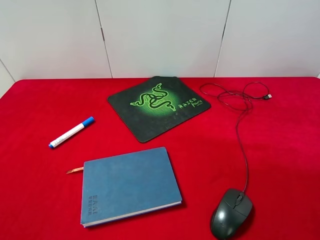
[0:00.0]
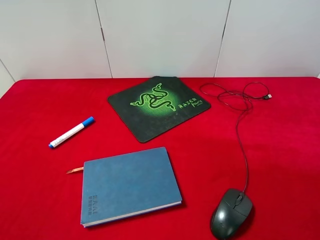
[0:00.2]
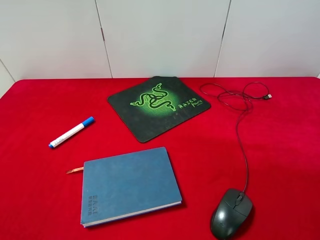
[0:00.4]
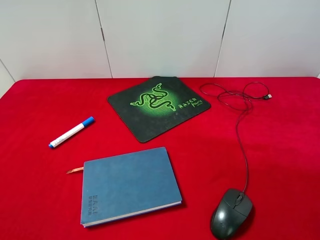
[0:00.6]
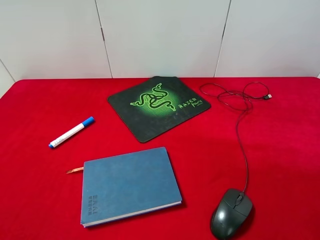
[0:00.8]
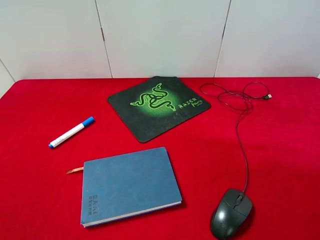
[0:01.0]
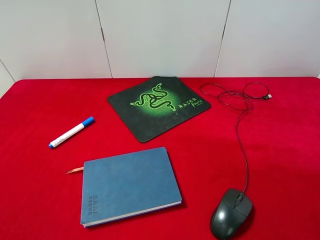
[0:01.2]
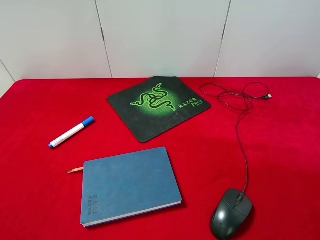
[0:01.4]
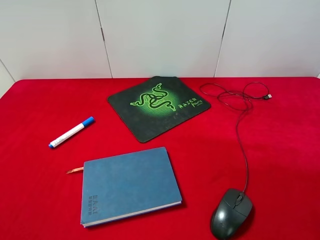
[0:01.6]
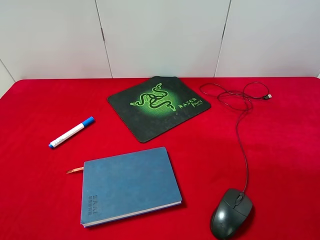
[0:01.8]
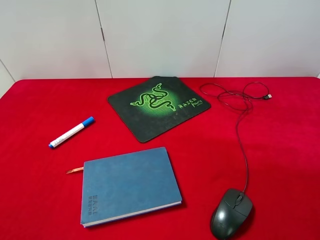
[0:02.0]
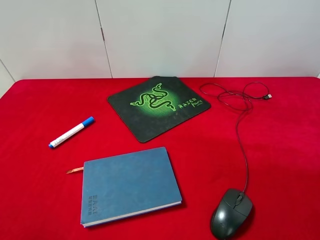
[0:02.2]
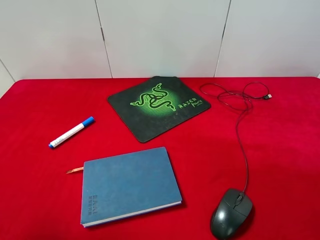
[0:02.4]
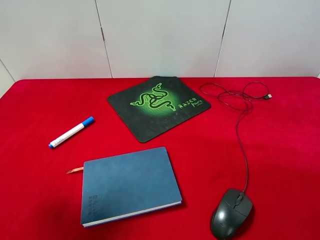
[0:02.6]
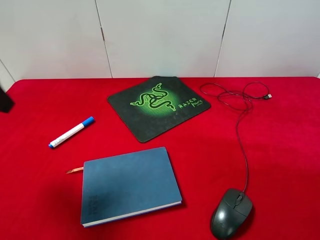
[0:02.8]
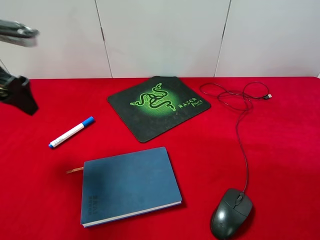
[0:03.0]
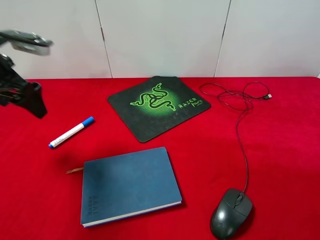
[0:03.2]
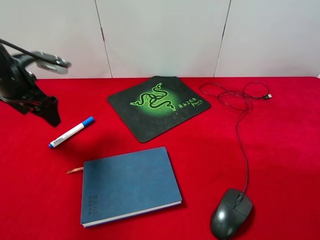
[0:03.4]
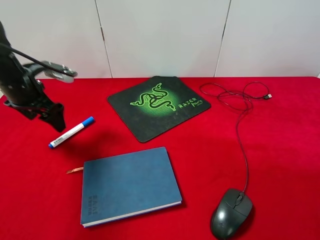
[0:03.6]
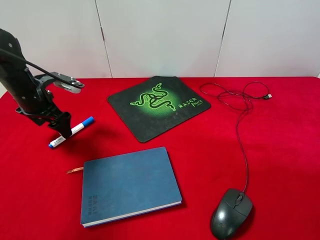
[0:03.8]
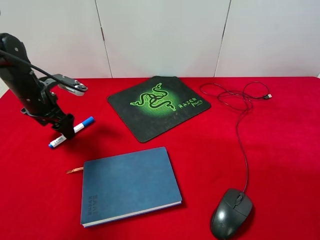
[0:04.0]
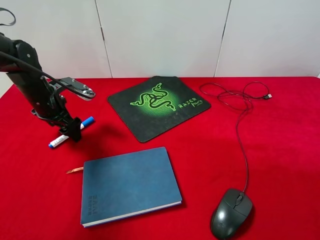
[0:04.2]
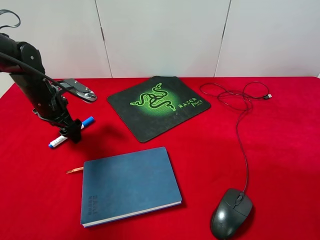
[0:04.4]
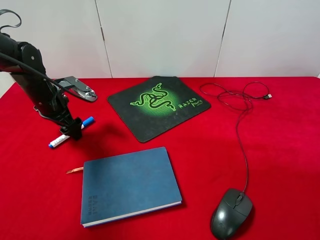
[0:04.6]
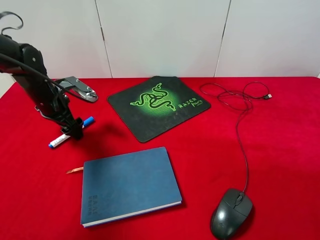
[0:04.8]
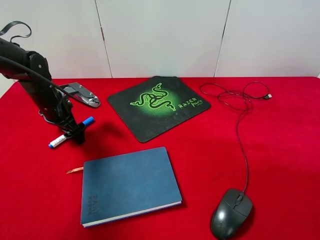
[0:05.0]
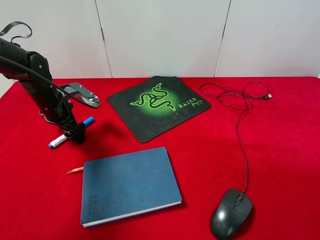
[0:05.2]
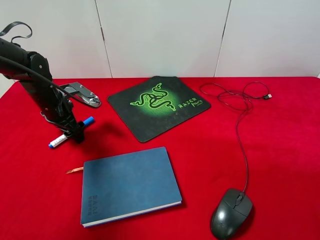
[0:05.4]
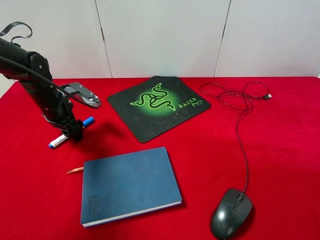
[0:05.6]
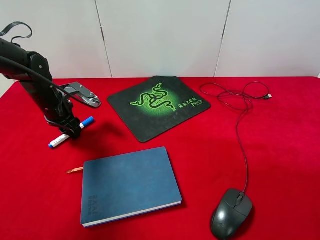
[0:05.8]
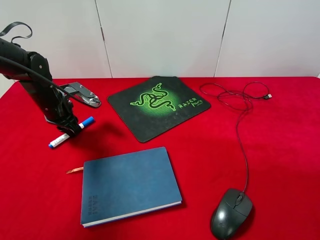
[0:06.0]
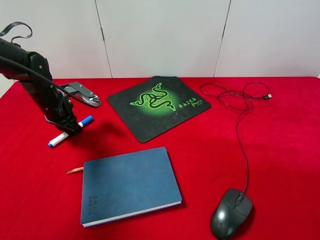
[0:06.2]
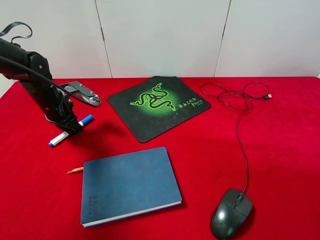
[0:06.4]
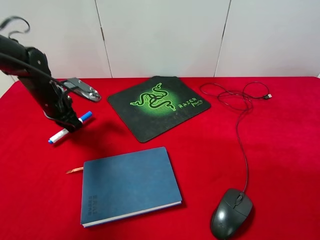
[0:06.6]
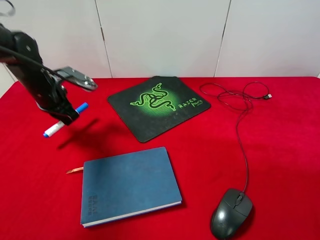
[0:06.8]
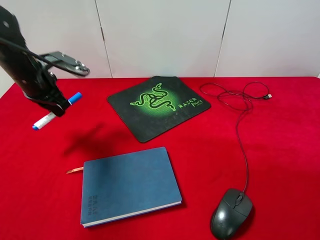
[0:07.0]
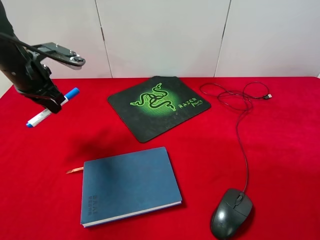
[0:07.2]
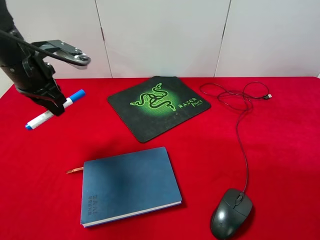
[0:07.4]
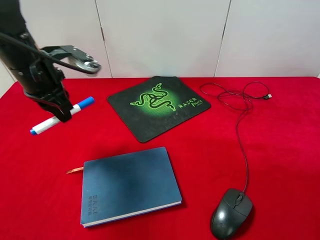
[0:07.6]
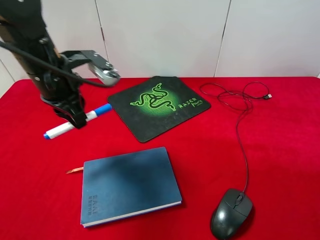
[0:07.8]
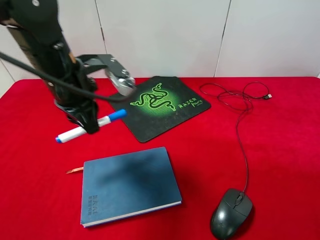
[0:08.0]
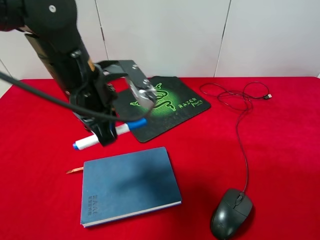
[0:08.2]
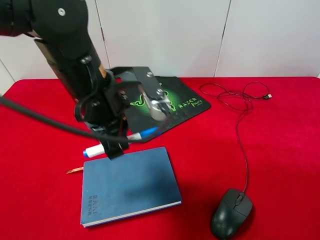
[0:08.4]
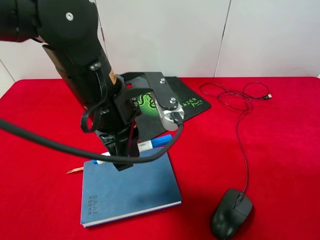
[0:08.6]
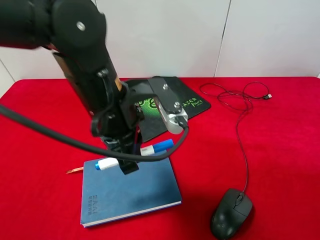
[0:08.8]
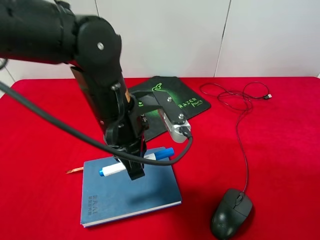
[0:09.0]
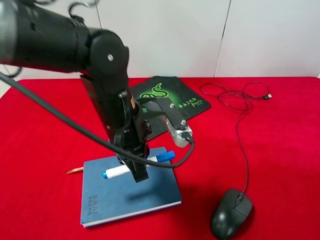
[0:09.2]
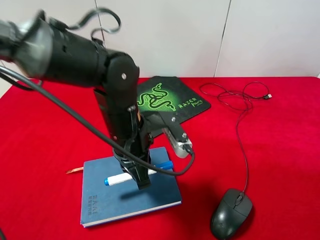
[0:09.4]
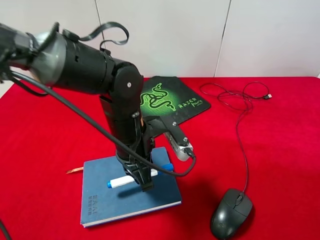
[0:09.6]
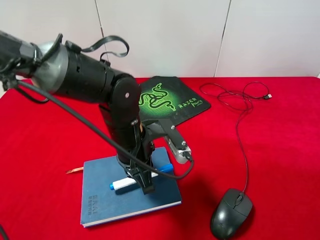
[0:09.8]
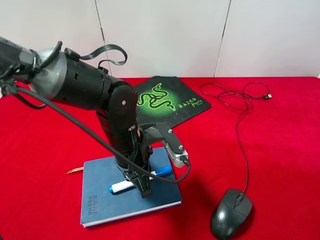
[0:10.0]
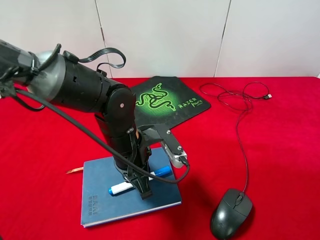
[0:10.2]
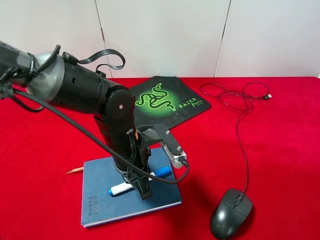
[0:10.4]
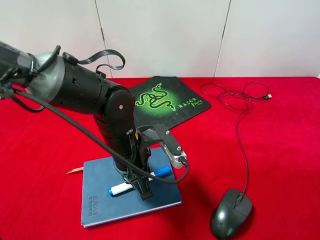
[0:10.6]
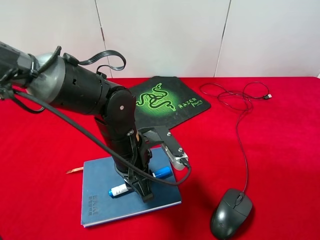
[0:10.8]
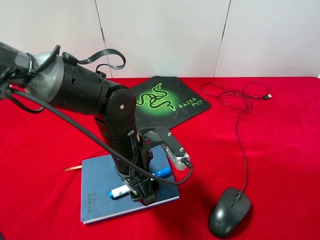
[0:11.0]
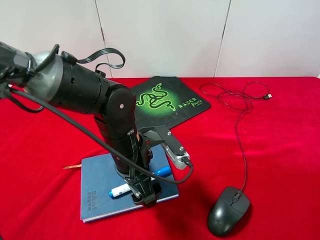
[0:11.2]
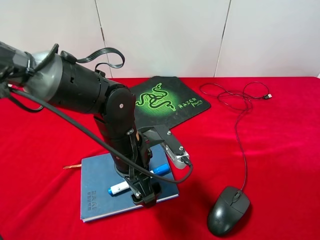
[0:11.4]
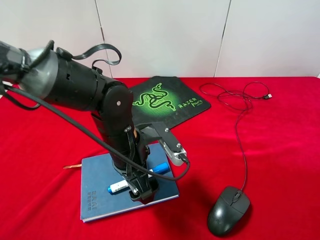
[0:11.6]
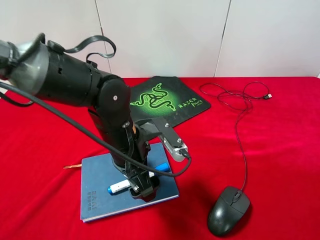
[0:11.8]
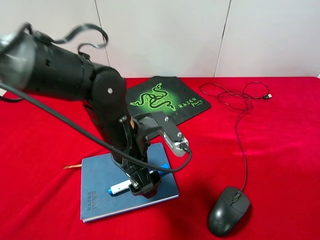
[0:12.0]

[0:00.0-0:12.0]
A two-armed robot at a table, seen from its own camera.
Step, 0:00.0 to 0:06.6: Pick up the marker pen with left gripper.
Step, 0:06.8 to 0:11.6: Place the marker pen on the notebook with left gripper.
0:00.0 to 0:01.6: The two grippers keep their place.
0:01.6 to 0:03.0: The left gripper heads forward, covering about 30 cm.
0:03.0 to 0:04.4: The left gripper shifts approximately 15 cm downward and forward.
0:04.4 to 0:06.0: The left gripper closes its fingers.
0:06.0 to 0:07.6: The left gripper is displaced upward, backward and to the right by some 15 cm.
0:07.6 to 0:09.0: The left gripper is displaced to the right and backward by roughly 15 cm.
0:09.0 to 0:10.4: The left gripper heads downward, covering approximately 10 cm.
0:10.4 to 0:12.0: The left gripper opens.

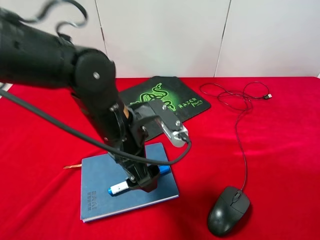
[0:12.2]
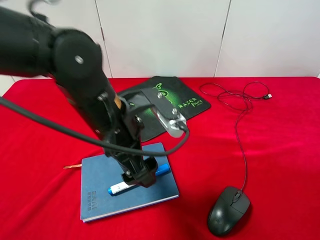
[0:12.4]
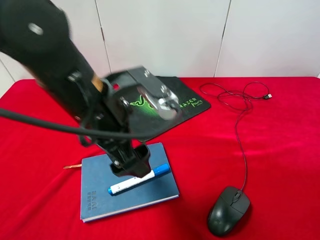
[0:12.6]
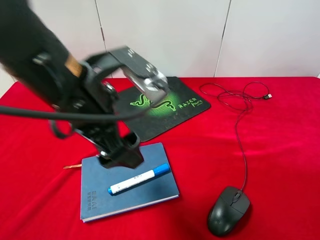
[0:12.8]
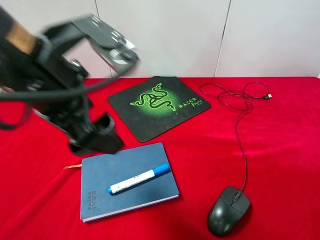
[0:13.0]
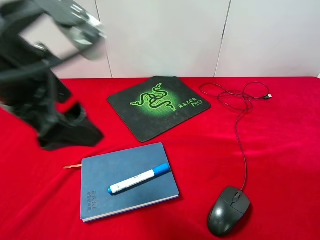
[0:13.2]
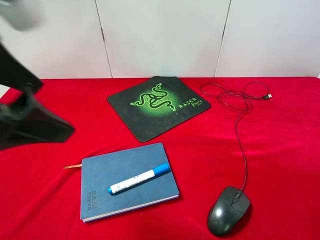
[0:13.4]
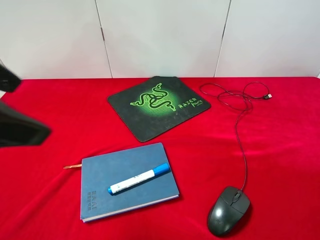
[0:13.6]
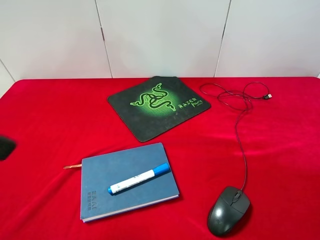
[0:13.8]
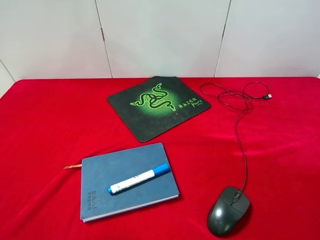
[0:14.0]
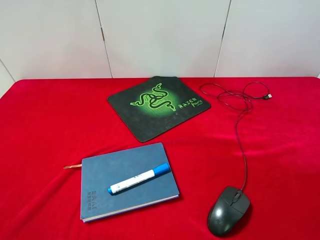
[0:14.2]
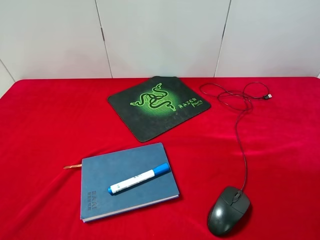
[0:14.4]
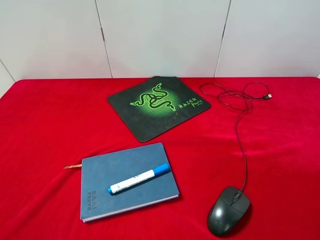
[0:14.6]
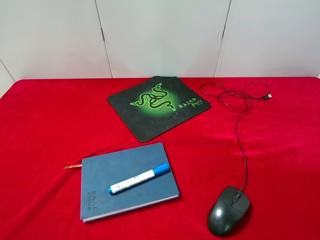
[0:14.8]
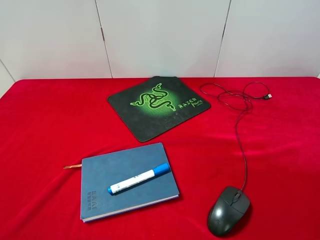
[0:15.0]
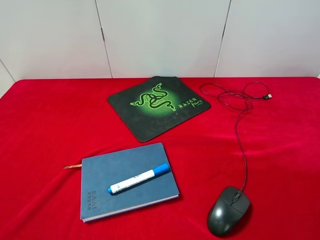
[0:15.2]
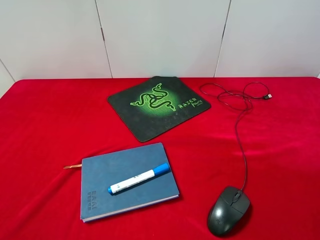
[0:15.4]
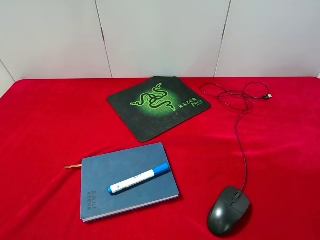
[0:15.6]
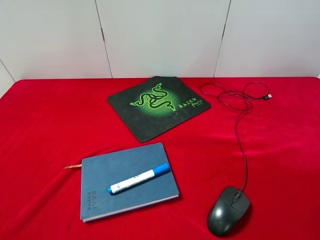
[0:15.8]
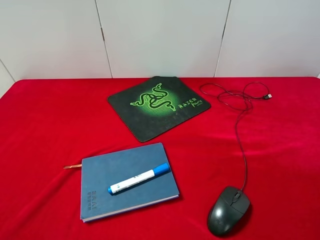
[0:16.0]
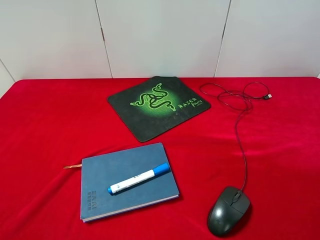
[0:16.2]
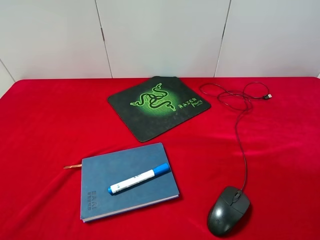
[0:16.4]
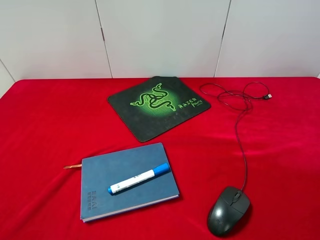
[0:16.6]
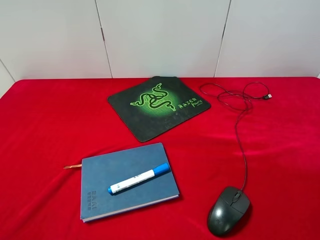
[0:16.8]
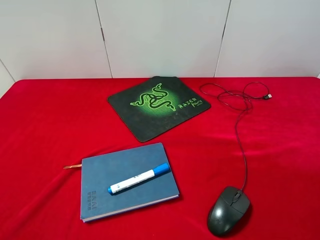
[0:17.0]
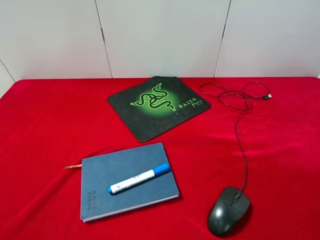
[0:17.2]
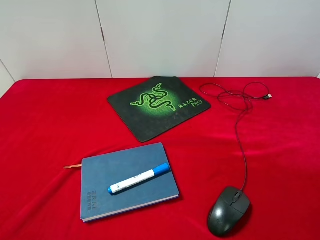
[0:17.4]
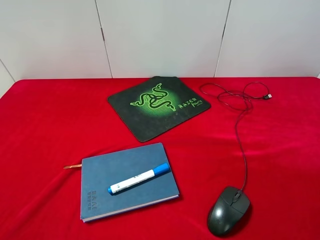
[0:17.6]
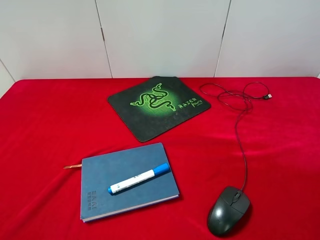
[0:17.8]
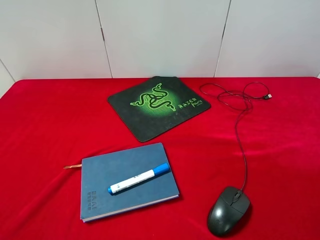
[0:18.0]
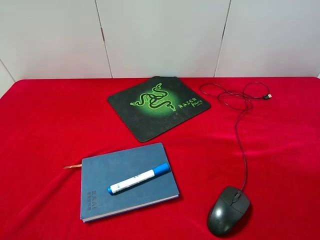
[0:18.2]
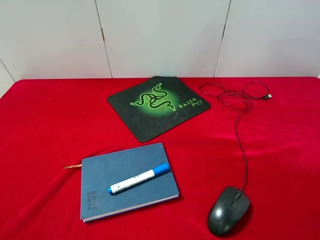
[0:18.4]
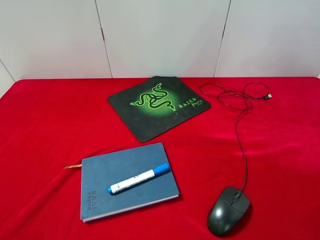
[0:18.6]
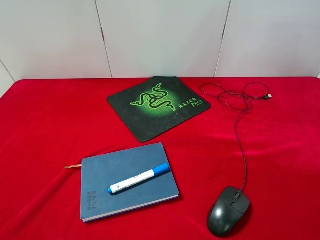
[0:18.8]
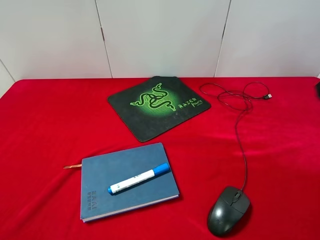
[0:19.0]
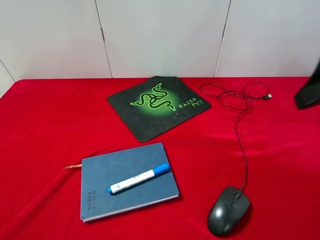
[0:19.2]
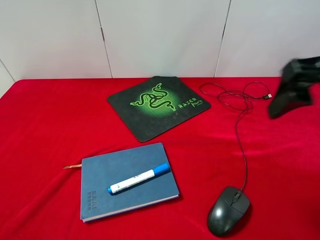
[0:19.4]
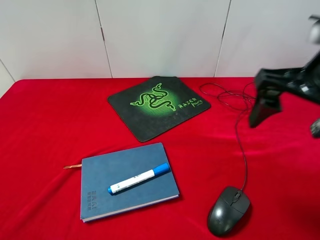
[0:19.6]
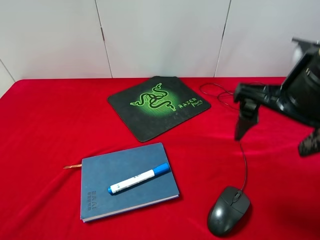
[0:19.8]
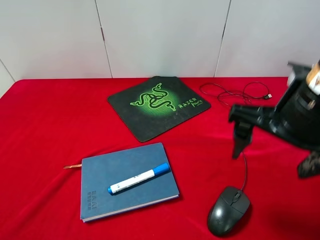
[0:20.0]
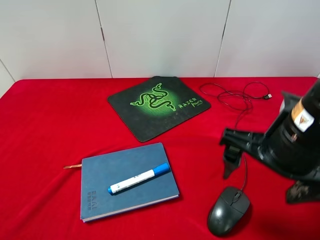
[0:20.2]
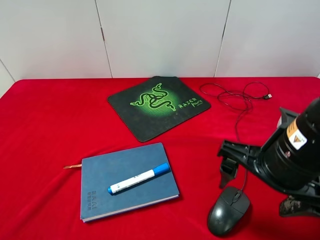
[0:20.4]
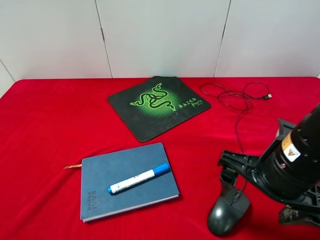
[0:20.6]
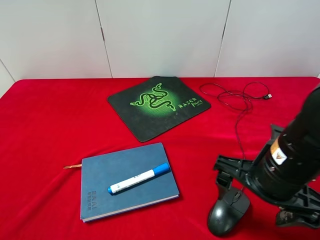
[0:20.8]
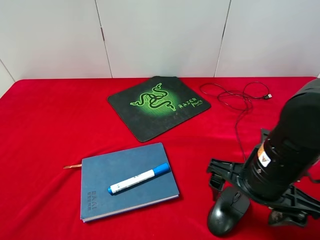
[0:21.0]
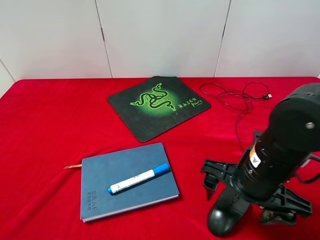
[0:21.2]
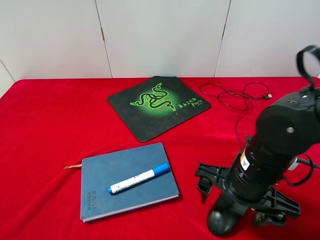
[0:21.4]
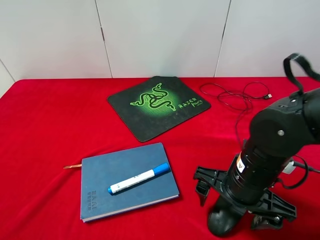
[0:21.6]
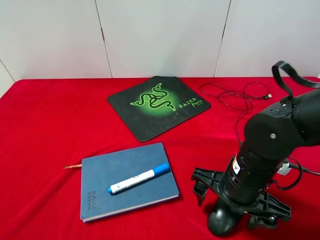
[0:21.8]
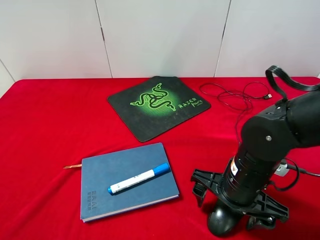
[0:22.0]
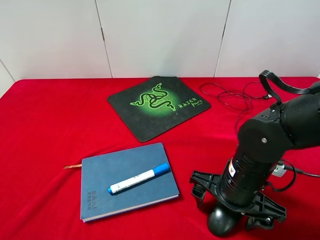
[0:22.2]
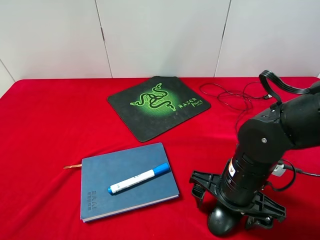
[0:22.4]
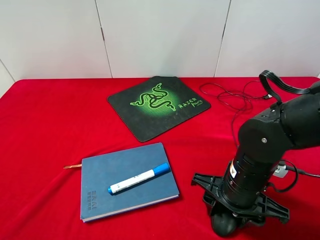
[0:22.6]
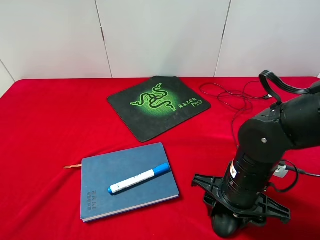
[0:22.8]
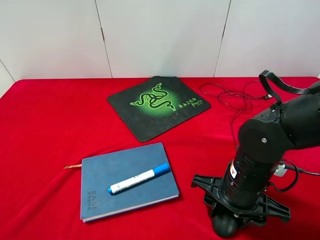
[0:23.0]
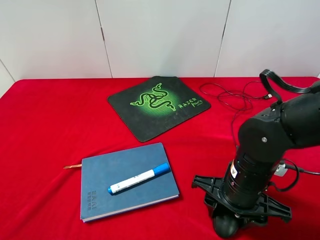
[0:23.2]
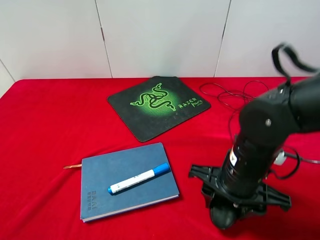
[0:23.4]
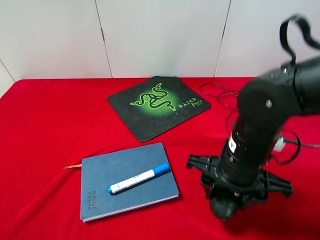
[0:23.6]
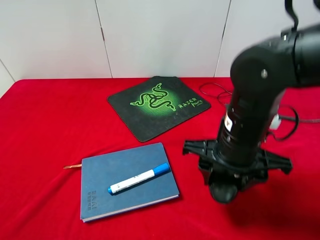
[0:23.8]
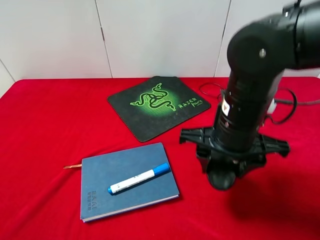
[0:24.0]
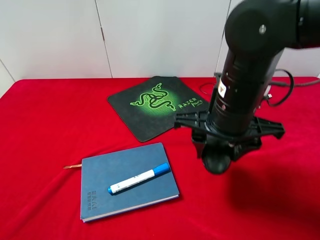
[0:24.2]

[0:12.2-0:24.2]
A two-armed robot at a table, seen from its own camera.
Step, 0:12.2 to 0:23.6: Pick up the mouse with right gripper.
0:12.2 to 0:13.8: The left gripper travels upward, to the left and backward by roughly 25 cm.
0:18.2 to 0:19.8: The right gripper heads forward and to the left, covering roughly 15 cm.
0:19.8 to 0:21.2: The right gripper is displaced downward by some 15 cm.
0:21.2 to 0:22.6: The right gripper closes up.
0:22.6 to 0:24.2: The right gripper goes approximately 15 cm upward and forward.
